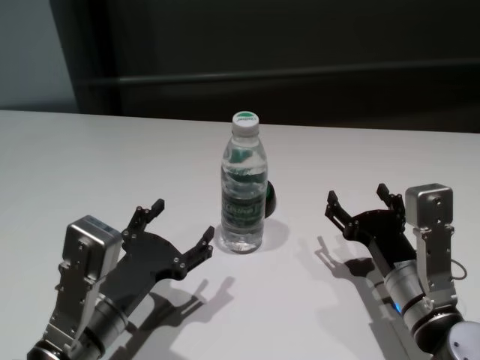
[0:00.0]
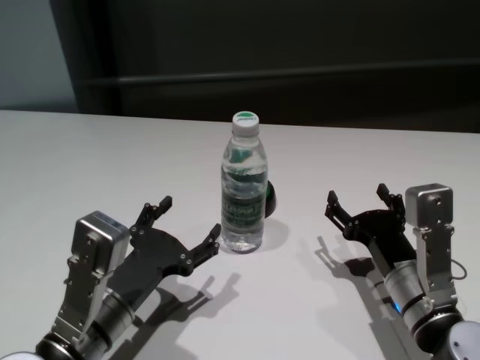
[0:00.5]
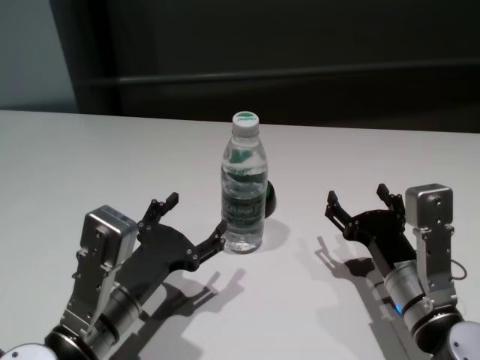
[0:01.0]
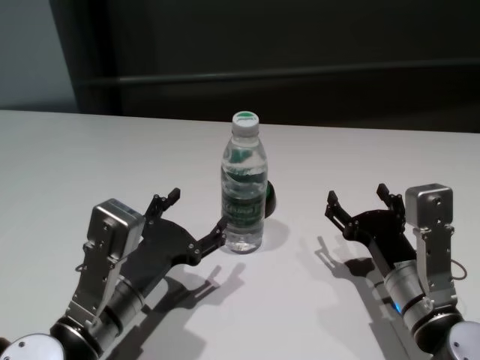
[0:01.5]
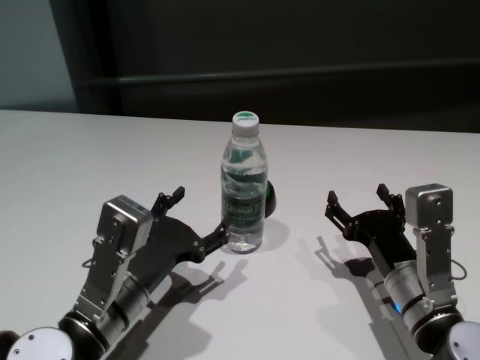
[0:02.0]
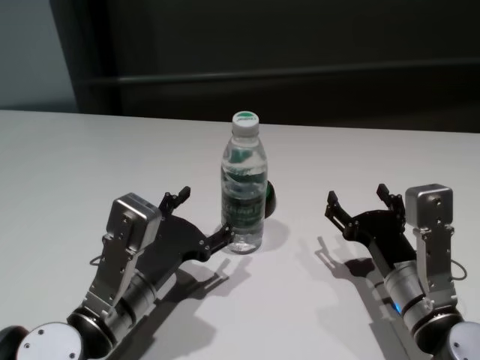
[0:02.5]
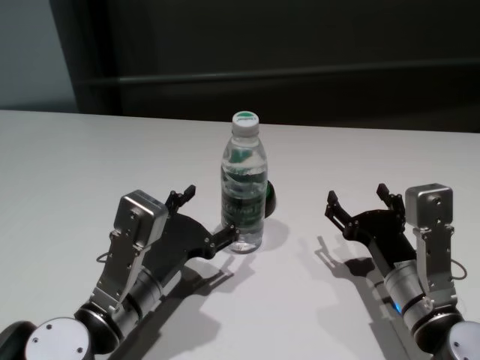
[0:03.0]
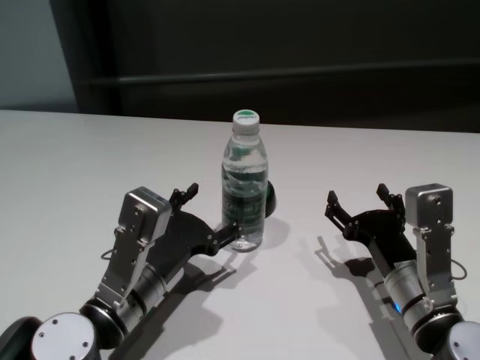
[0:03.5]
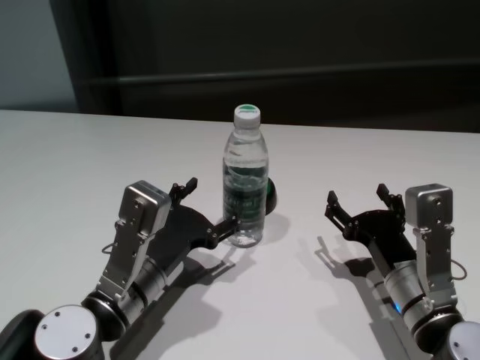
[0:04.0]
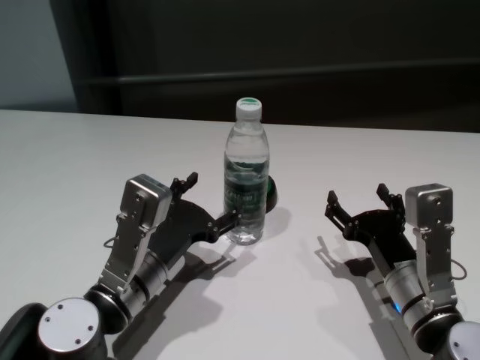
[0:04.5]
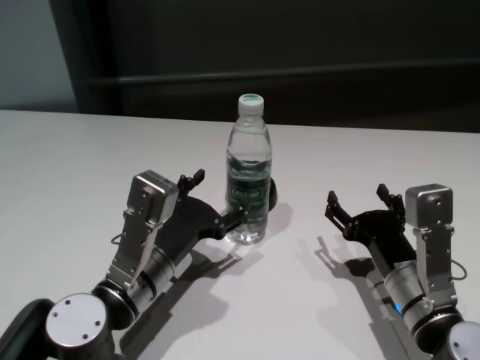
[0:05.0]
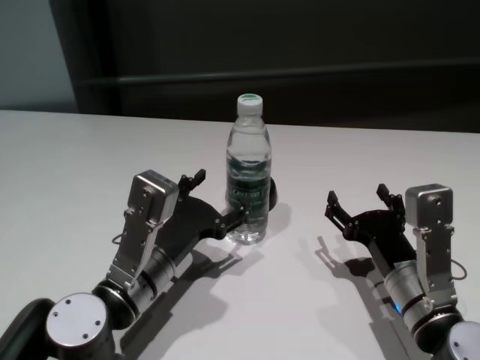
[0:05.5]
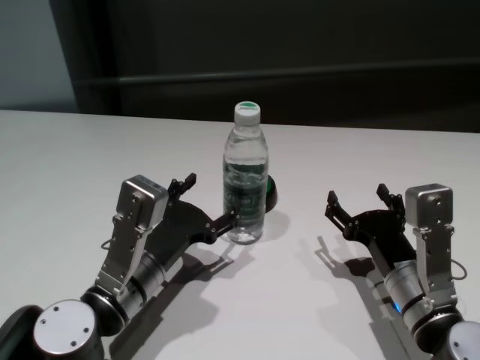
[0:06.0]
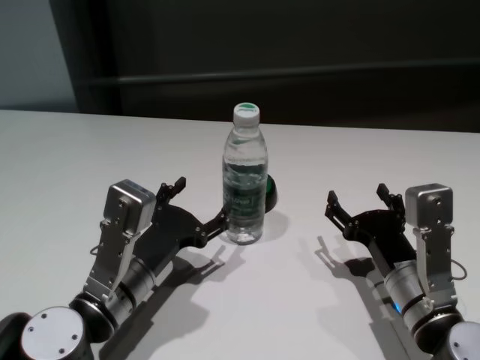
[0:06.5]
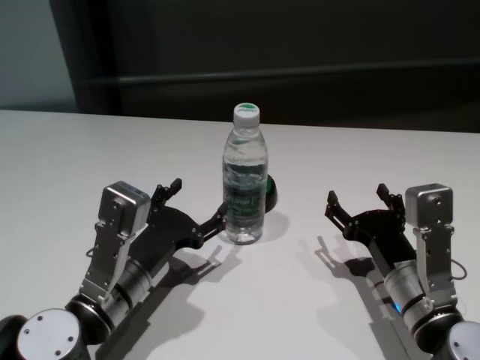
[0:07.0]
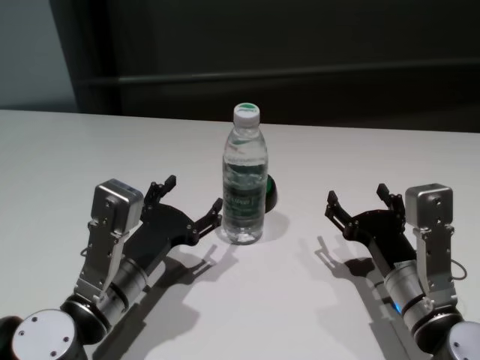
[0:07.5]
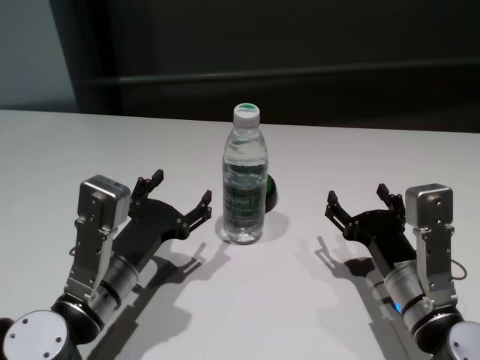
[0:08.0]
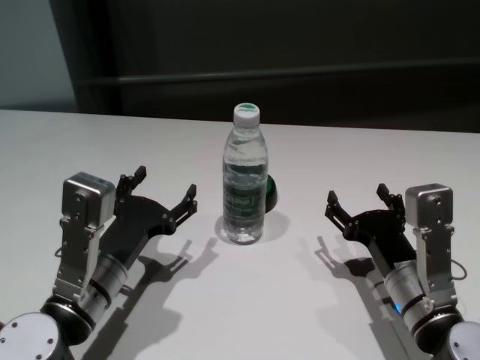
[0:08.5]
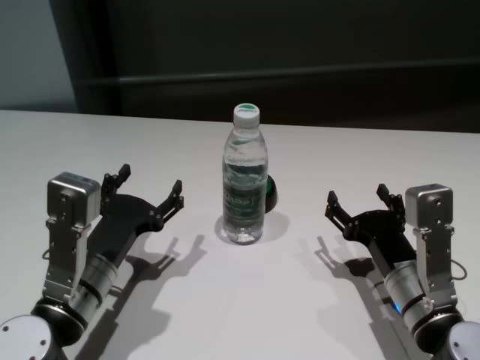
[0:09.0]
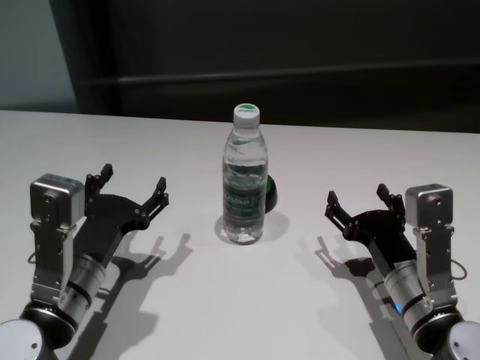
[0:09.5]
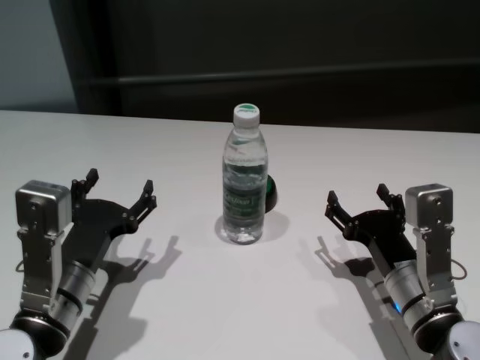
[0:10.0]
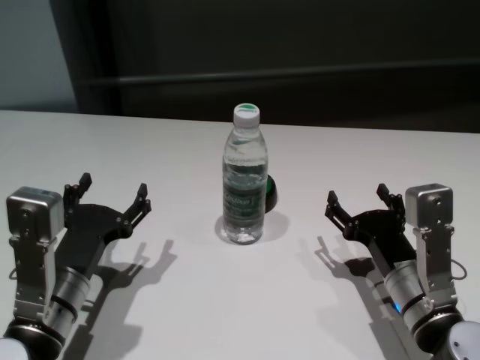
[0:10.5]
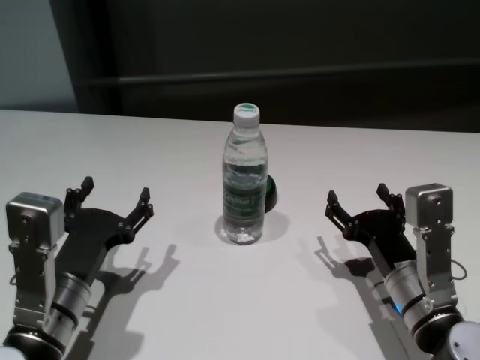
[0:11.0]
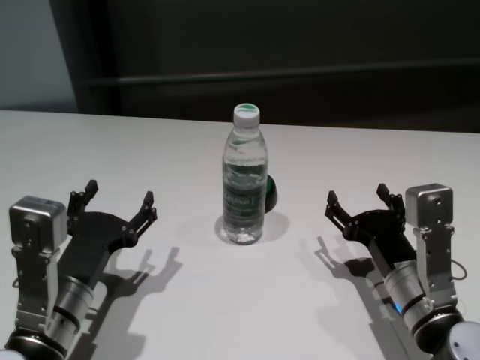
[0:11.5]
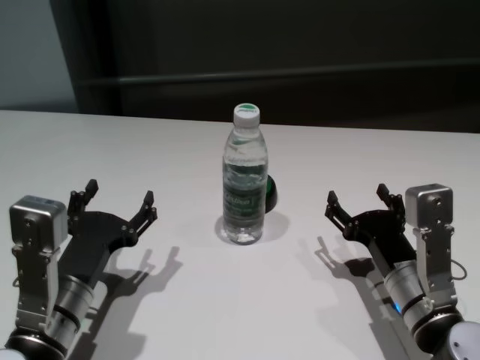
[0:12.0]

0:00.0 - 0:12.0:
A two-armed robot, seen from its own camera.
Task of the whole recording: return to a safe position after touching an obstacle with your arm on the white table.
Step, 0:00.0 - 0:07.5: Touch the bottle with left gripper.
